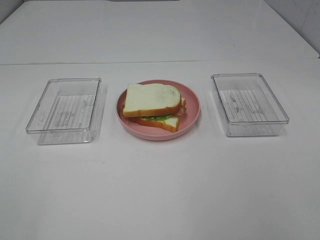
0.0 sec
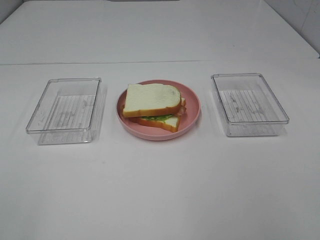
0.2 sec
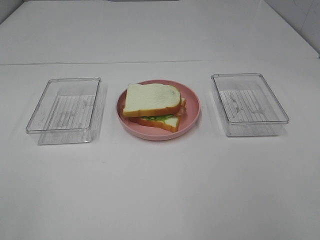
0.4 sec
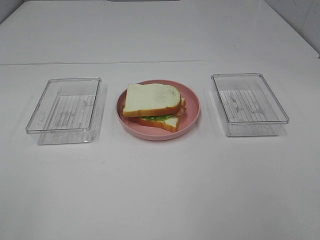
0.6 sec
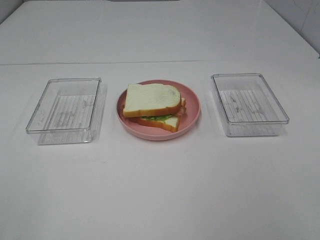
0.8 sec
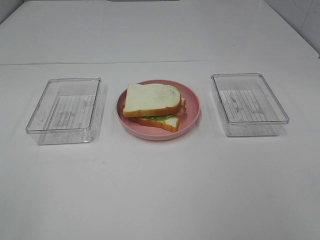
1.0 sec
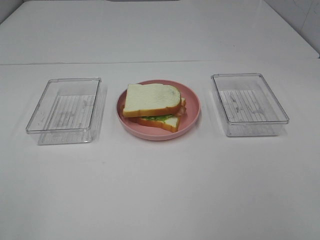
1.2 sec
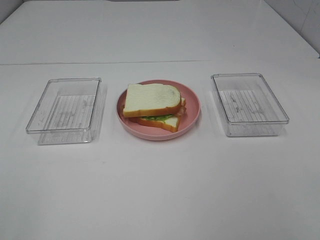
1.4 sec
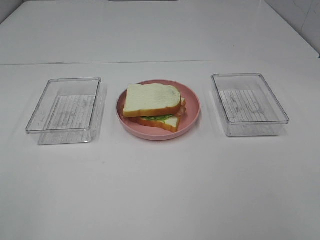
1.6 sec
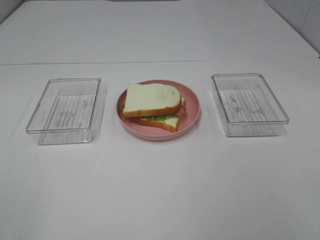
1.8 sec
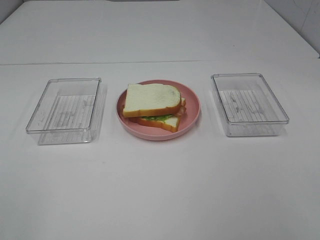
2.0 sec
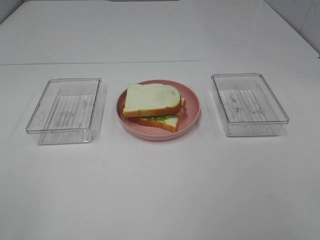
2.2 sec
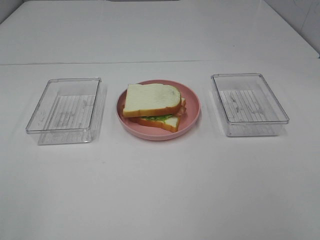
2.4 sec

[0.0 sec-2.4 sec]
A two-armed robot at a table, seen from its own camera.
Task of the whole recording: Make sandwiches.
1.2 sec to 2.4 sec: Both grippers stay about where they are.
